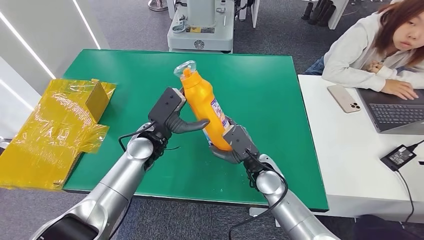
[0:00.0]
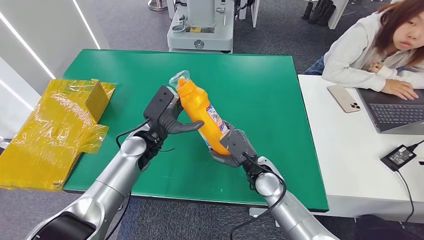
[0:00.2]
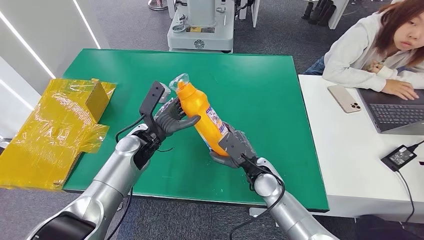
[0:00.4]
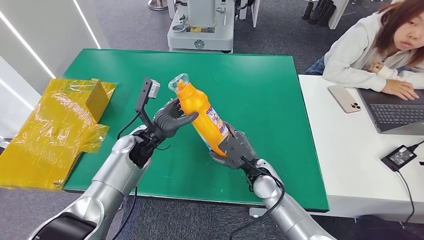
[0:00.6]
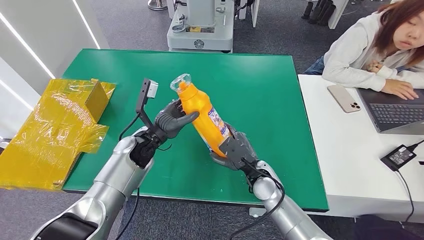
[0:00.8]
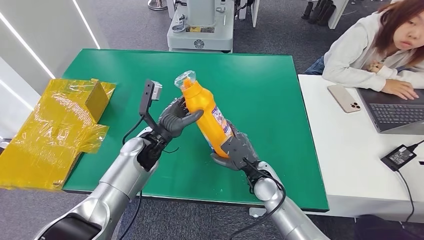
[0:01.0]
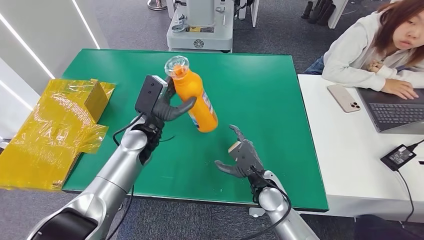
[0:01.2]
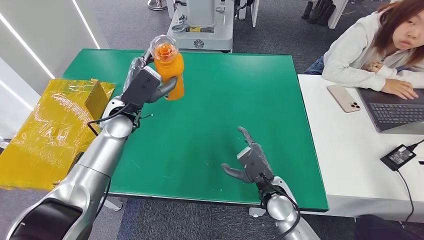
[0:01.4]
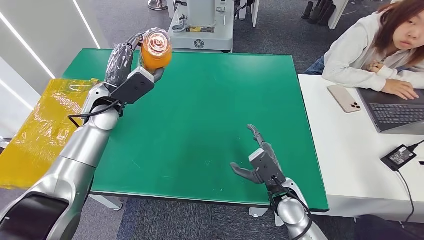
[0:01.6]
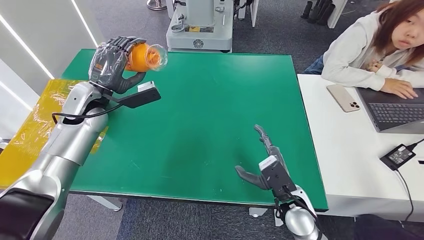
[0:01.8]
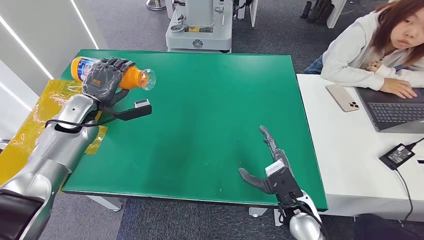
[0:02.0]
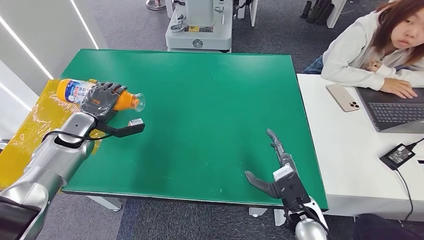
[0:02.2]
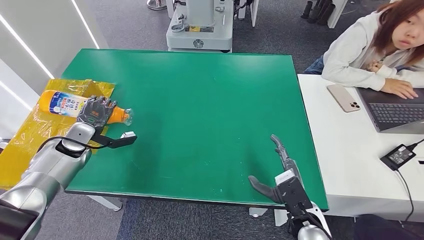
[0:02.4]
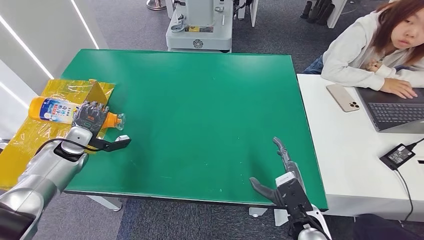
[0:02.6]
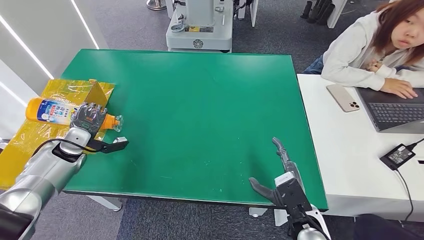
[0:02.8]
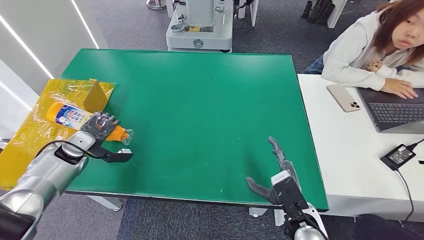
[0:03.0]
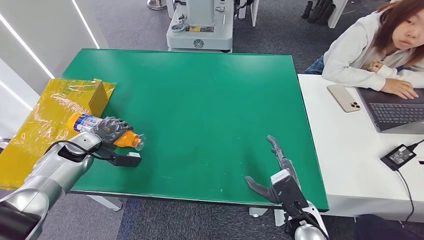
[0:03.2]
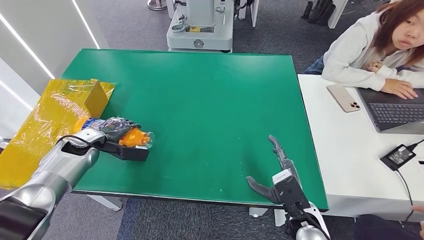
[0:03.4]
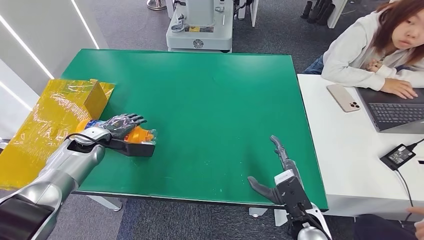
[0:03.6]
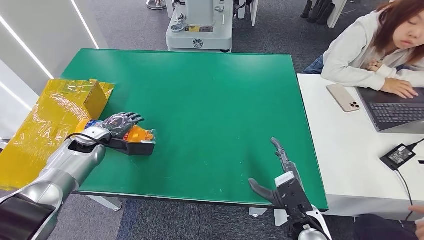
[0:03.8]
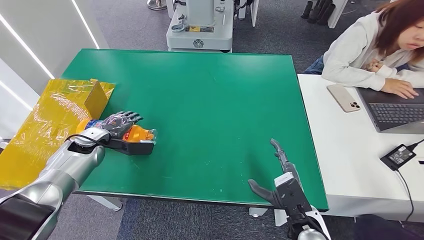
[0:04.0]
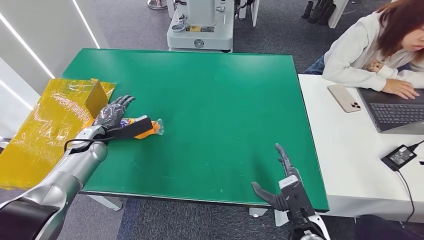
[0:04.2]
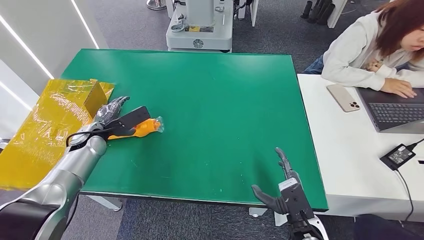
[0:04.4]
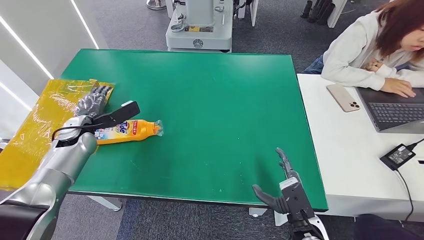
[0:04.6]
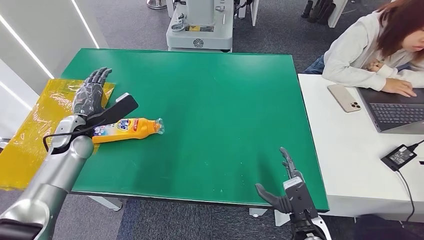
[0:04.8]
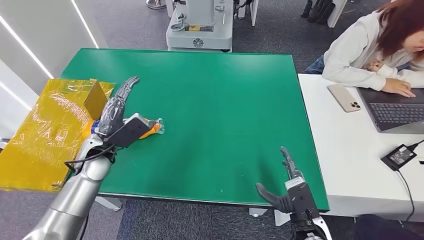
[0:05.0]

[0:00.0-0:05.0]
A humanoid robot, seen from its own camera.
Step, 0:00.0 to 0:04.8: Turn the bottle to the front side.
0:01.6 to 0:03.4: The right hand shifts some 5 cm backward, while the left hand travels to the left and downward by approximately 20 cm.
0:03.4 to 0:05.0: The left hand goes some 10 cm to the right.

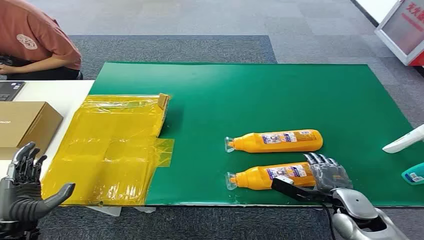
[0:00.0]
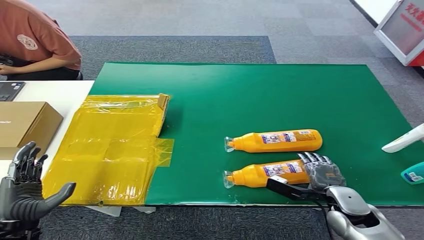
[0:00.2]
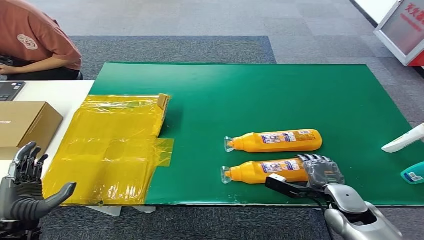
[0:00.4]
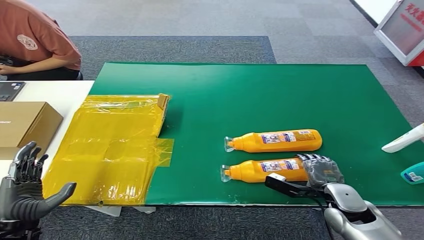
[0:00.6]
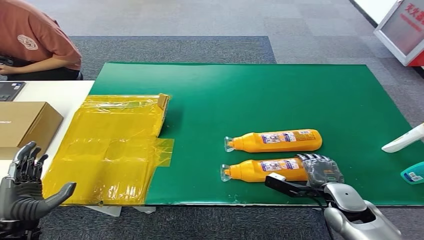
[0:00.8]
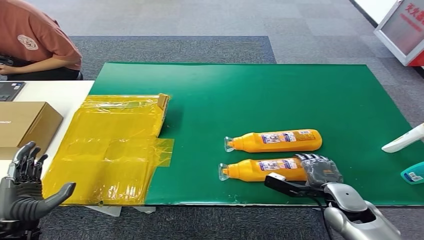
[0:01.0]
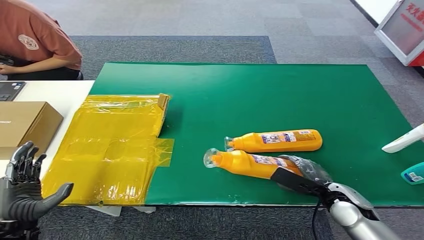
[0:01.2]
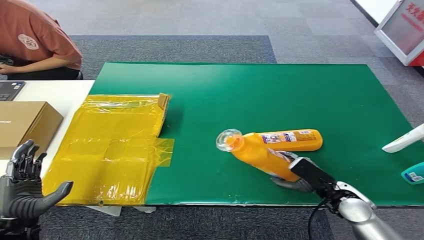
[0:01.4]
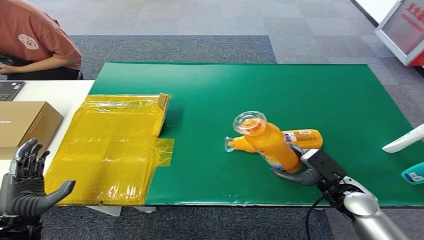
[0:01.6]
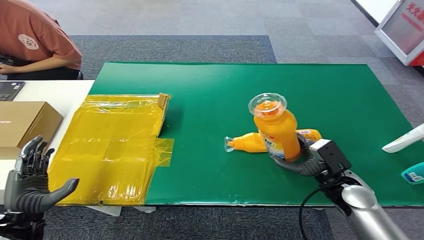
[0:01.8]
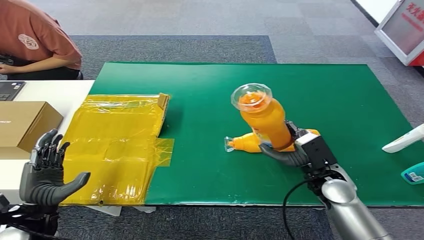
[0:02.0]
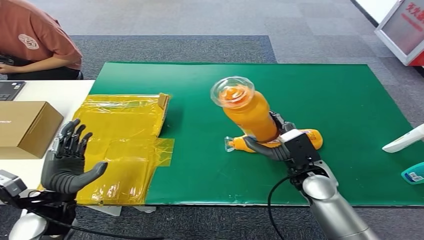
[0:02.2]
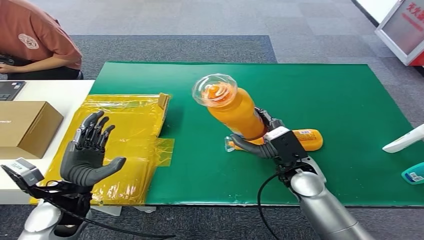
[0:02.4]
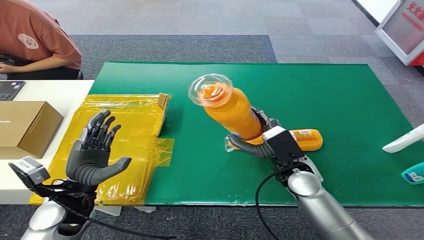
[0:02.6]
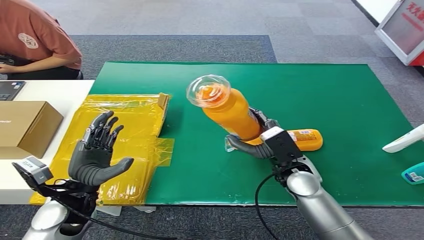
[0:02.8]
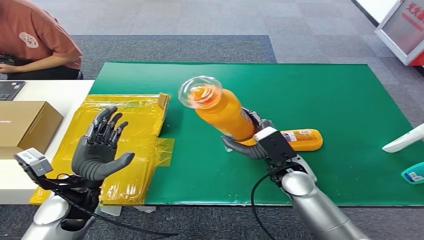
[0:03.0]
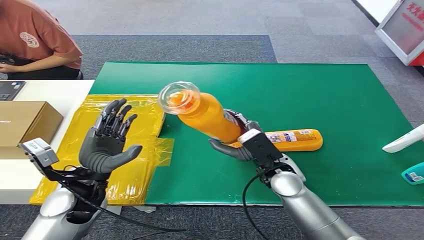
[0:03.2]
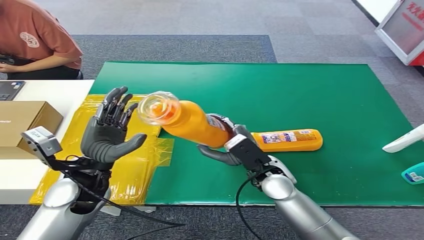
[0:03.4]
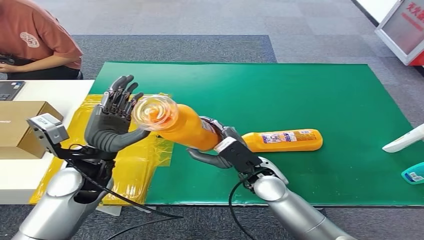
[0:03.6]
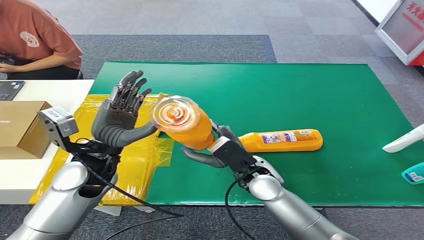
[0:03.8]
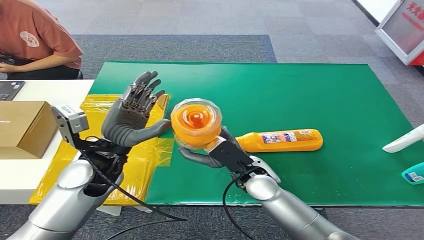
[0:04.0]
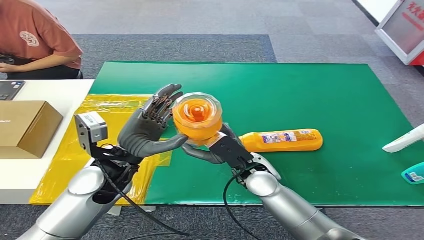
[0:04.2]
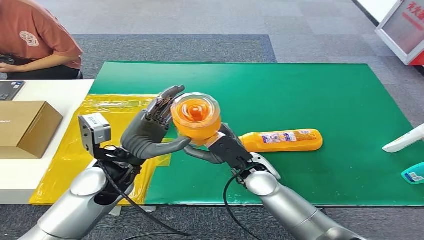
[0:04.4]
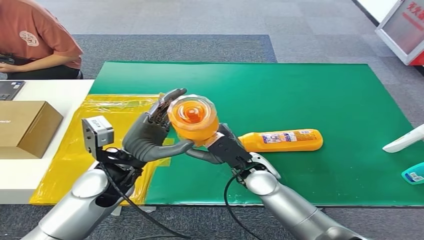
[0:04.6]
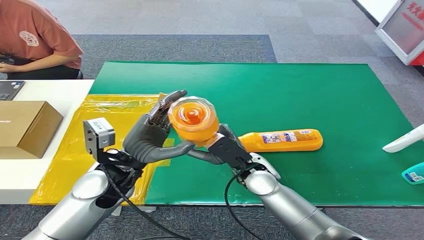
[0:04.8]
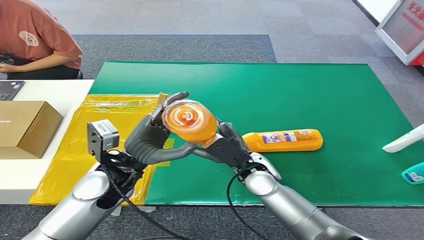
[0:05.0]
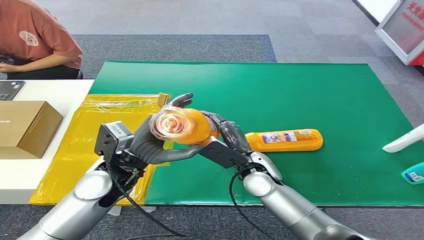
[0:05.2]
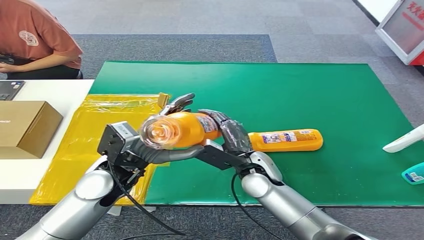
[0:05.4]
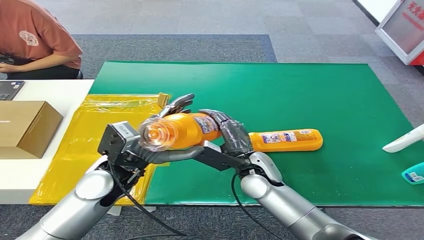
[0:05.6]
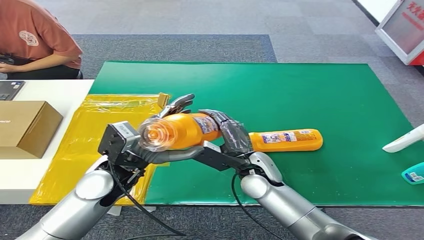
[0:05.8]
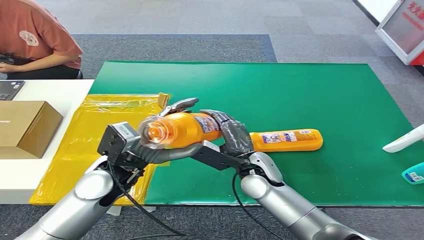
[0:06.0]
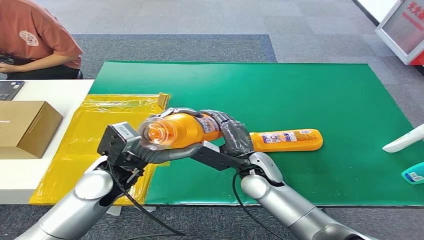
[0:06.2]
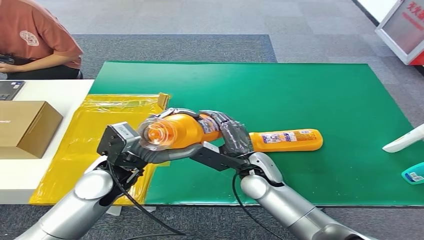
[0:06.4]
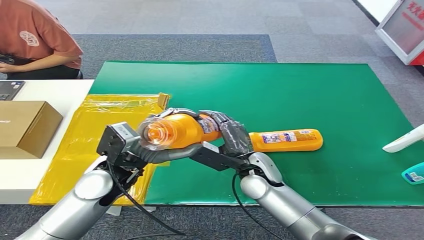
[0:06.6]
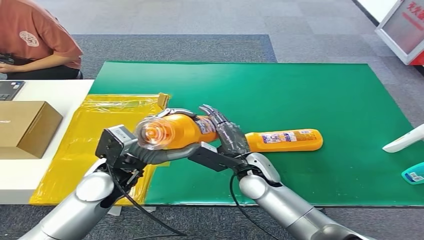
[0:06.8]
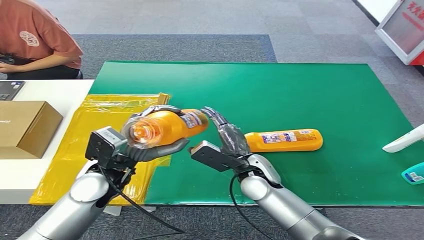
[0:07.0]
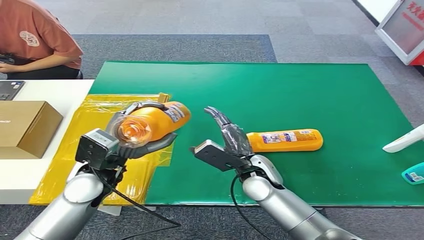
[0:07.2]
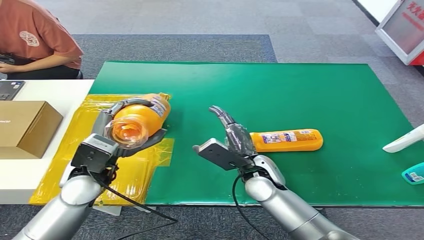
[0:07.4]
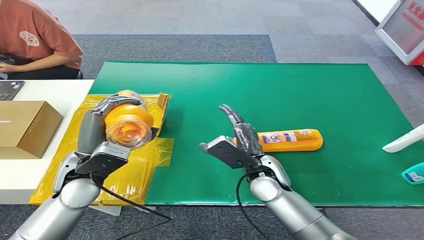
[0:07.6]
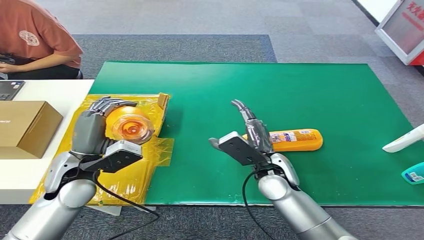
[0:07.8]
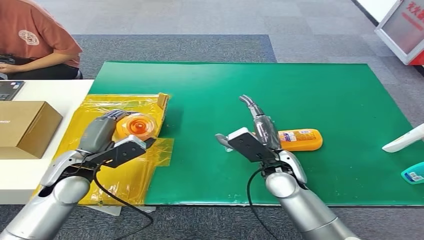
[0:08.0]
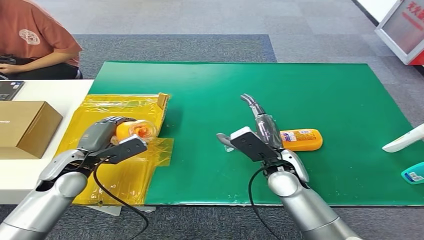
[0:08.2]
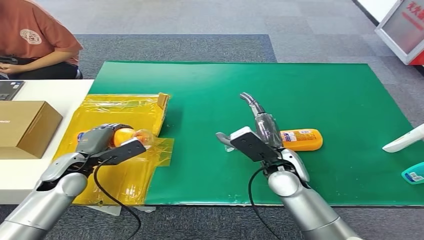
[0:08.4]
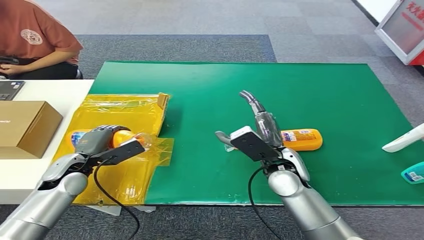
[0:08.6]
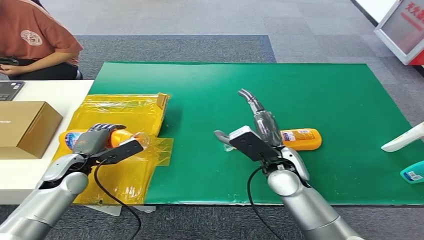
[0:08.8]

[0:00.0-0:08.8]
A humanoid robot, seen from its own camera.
Step, 0:00.0 to 0:02.2: Pick up the bottle from the table.
Step, 0:02.4 to 0:08.8: Turn the bottle to the front side.
0:05.8 to 0:07.4: The left hand moves to the left, roughly 5 cm.
